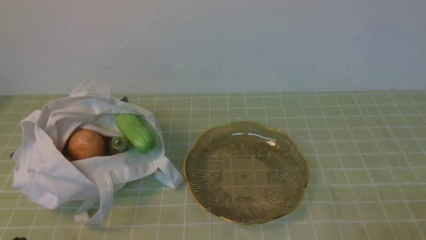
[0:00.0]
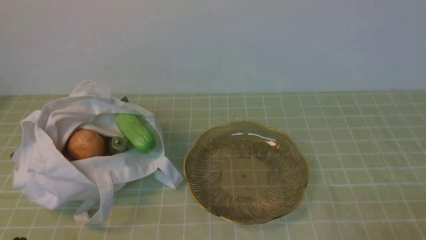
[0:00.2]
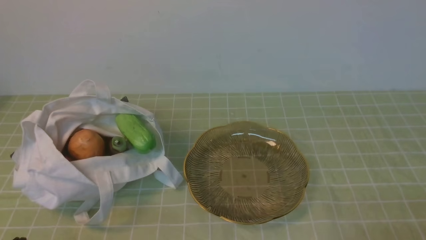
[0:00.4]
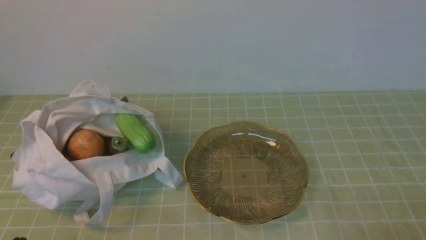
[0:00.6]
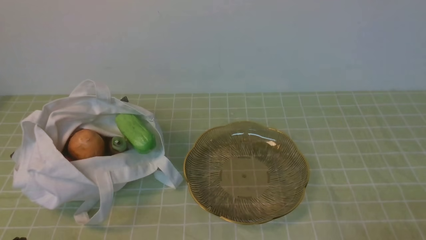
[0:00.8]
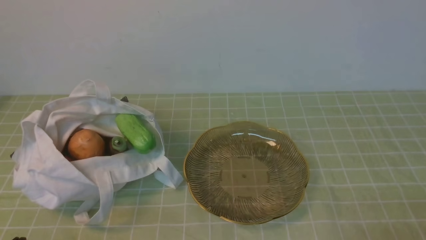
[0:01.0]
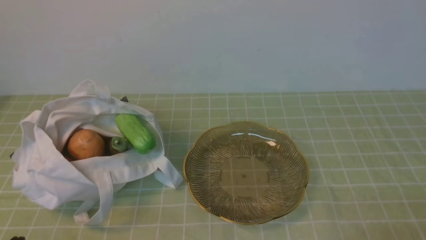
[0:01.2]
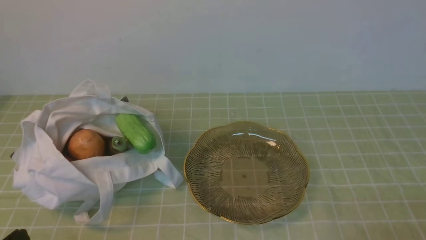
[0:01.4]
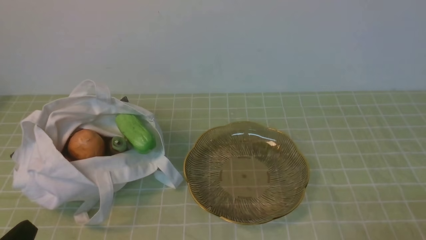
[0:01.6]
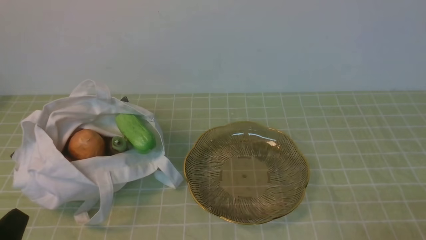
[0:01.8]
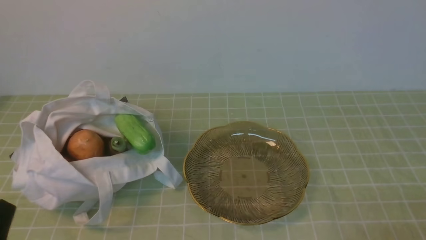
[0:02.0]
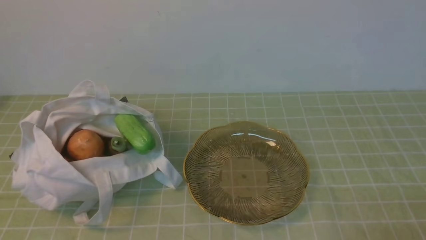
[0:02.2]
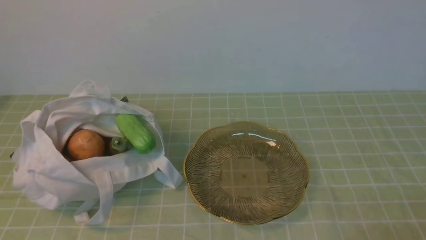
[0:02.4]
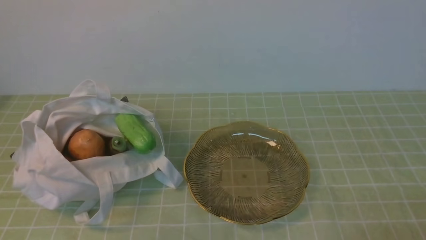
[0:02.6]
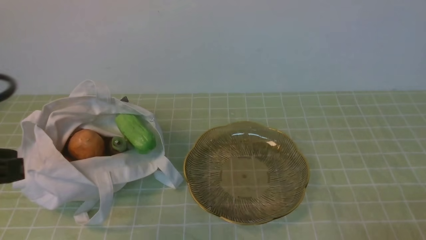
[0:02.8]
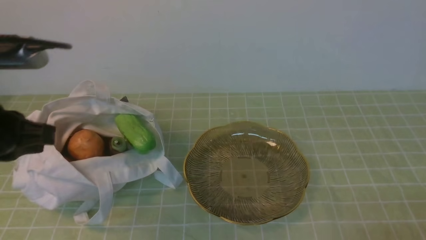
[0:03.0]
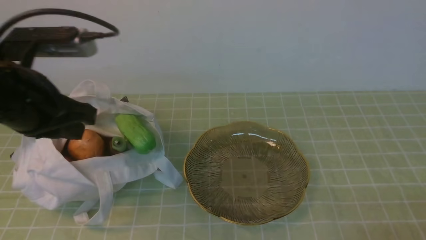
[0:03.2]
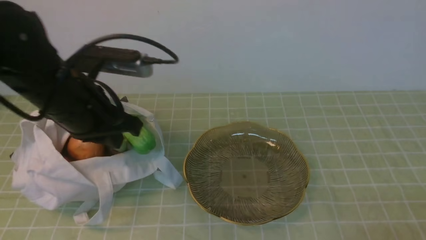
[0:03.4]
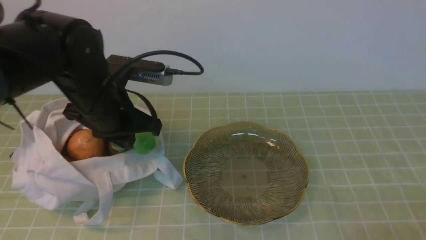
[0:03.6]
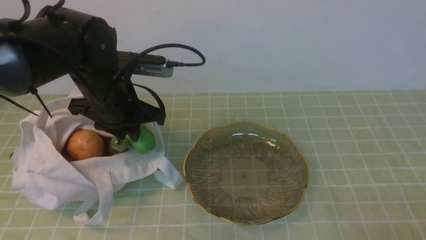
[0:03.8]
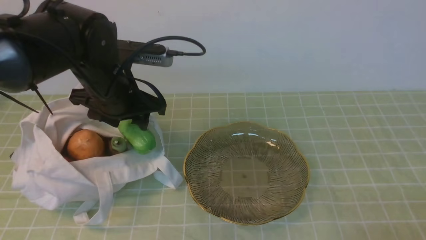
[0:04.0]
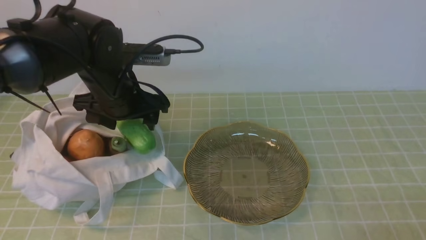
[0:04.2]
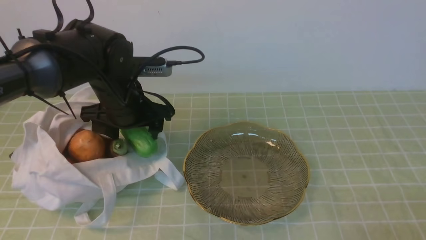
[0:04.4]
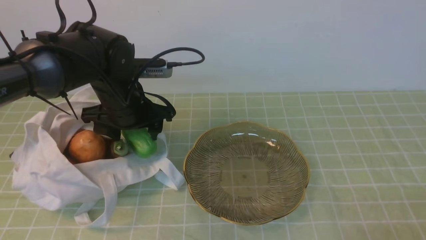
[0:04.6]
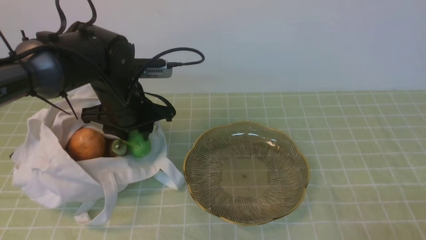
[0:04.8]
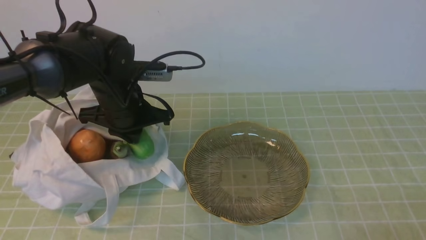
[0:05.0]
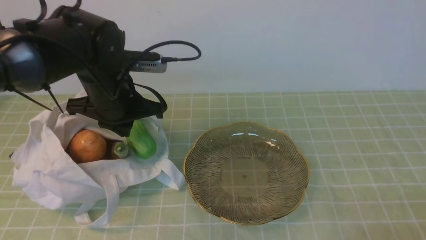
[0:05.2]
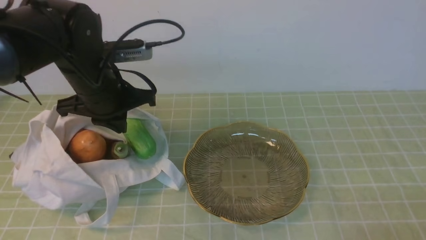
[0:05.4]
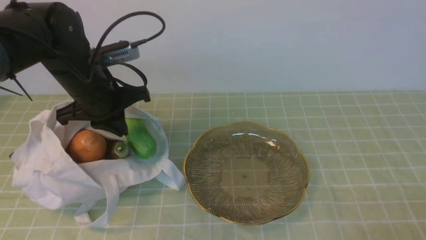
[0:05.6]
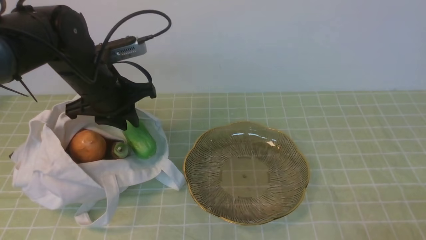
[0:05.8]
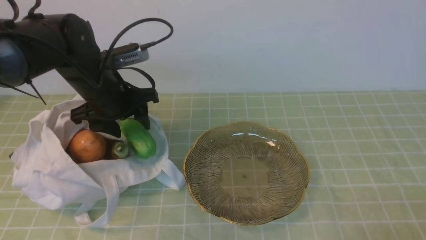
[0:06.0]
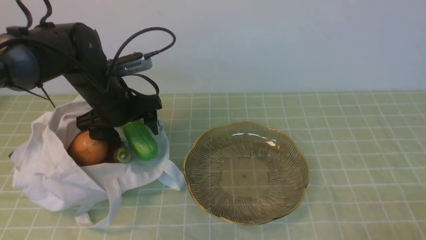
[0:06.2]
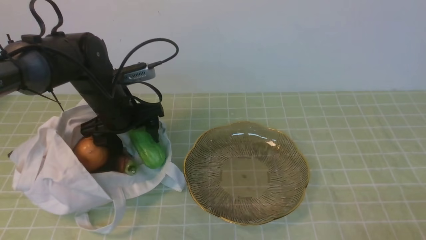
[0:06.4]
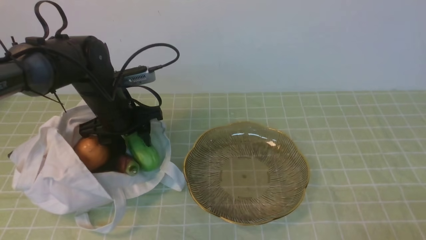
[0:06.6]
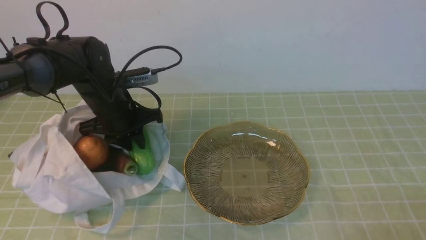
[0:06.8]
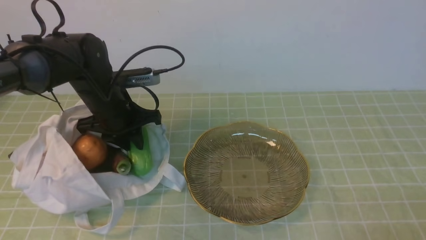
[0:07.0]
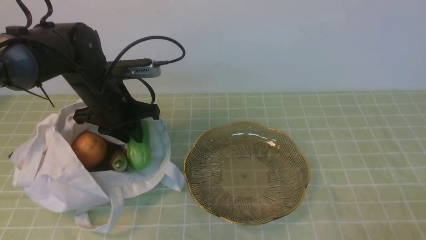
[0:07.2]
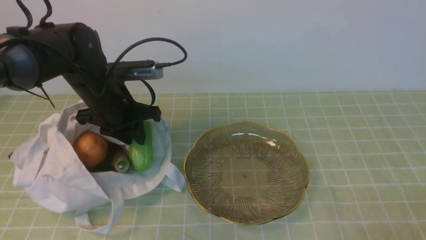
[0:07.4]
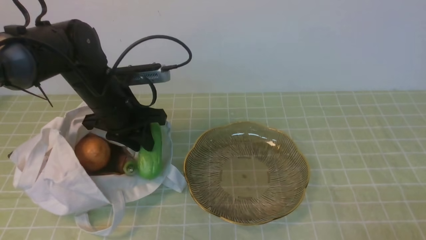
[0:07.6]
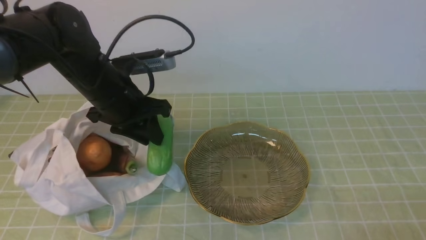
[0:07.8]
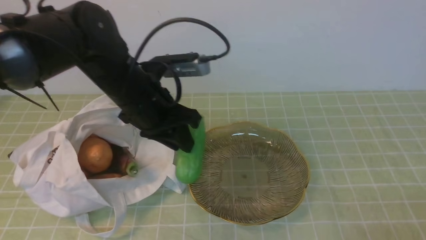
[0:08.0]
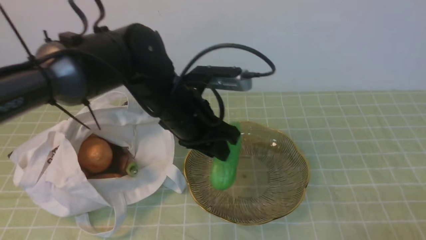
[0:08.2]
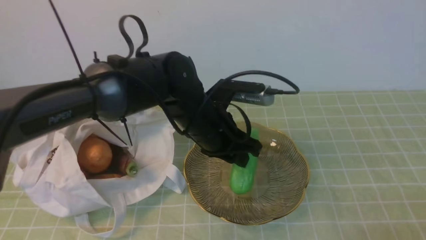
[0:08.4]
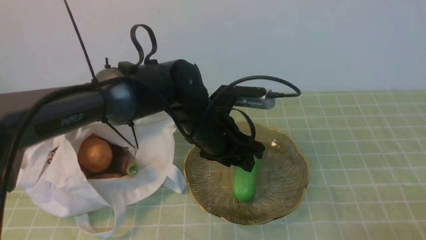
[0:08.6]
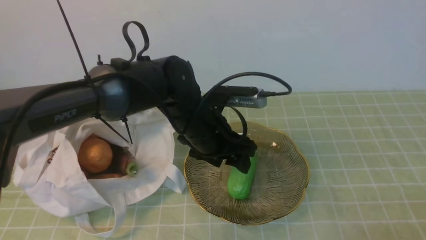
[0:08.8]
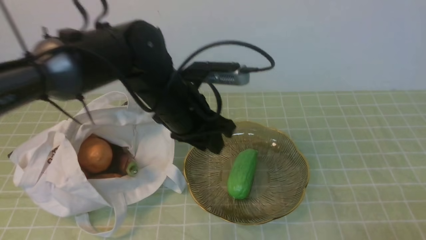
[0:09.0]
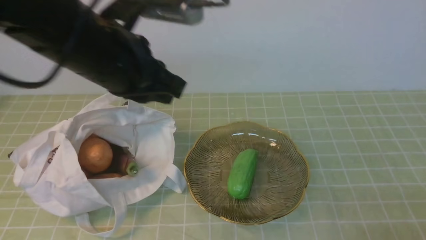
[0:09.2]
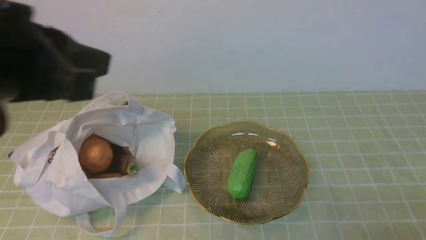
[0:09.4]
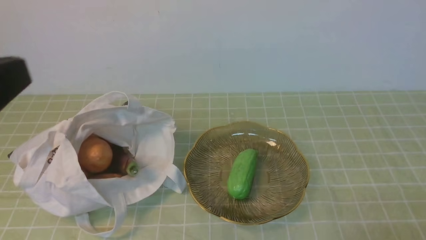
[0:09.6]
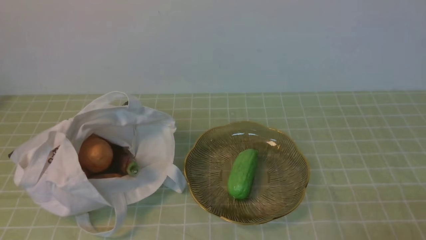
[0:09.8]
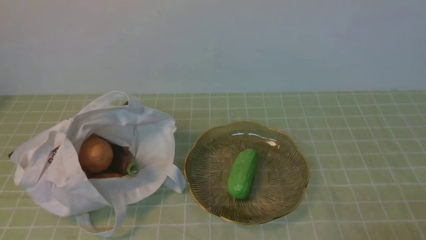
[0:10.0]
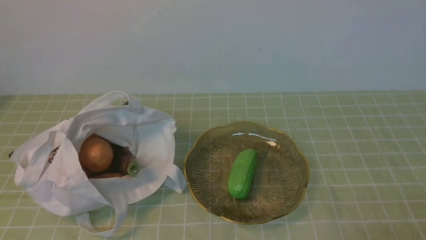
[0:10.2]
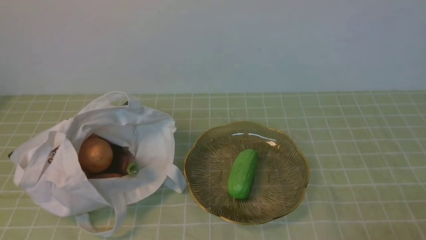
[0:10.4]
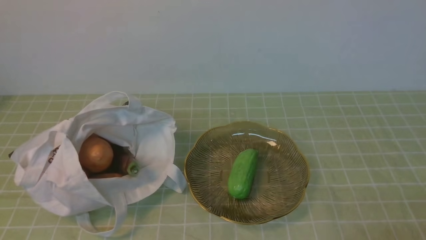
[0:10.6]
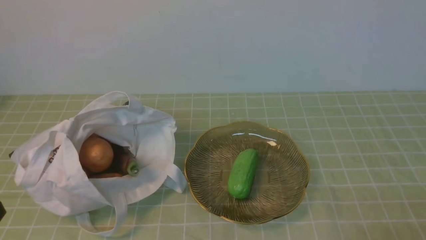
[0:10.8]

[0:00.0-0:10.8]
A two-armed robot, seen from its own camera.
Task of the whole recording: take vegetables from bag on green coffee tablecloth place on plate.
Step, 0:00.0 to 0:06.6: Grasp the bitter melon with left gripper.
Step, 0:06.8 to 0:08.8: Place the bitter melon on the plate with left gripper.
0:01.6 to 0:03.0: The left gripper travels upward and forward by approximately 20 cm.
0:03.0 to 0:04.6: The left gripper is displaced forward, downward and to the right by approximately 20 cm, and opens up.
0:04.6 to 0:06.2: The left gripper closes, then opens again.
0:06.2 to 0:07.8: The left gripper shifts by approximately 5 cm, and closes up.
0:07.8 to 0:09.2: The left gripper moves upward and backward, roughly 15 cm.
0:09.2 to 0:10.8: The left gripper goes about 25 cm backward, to the left and downward.

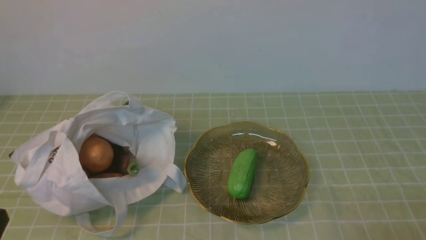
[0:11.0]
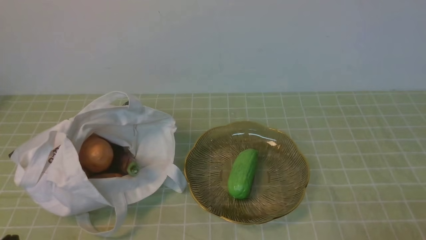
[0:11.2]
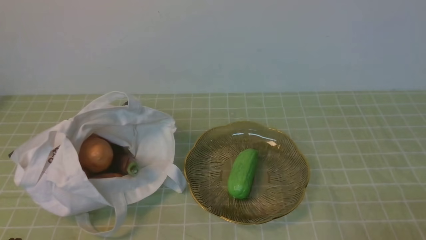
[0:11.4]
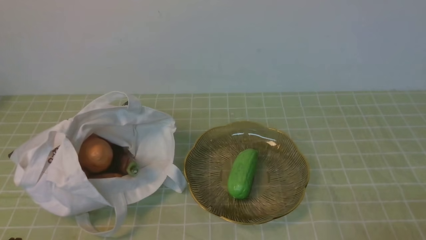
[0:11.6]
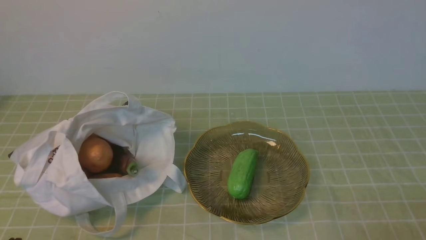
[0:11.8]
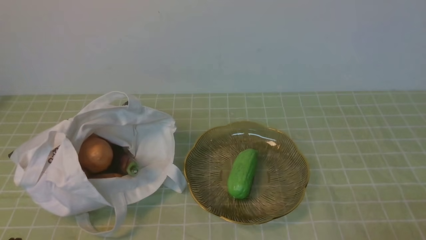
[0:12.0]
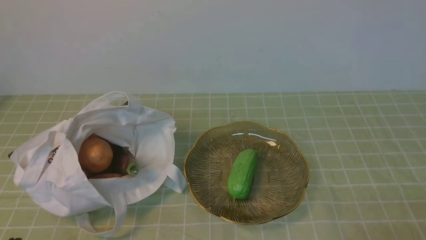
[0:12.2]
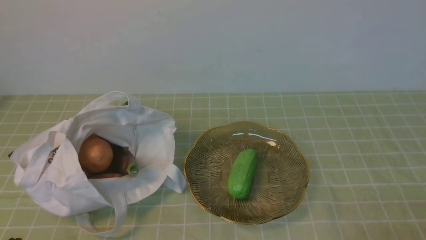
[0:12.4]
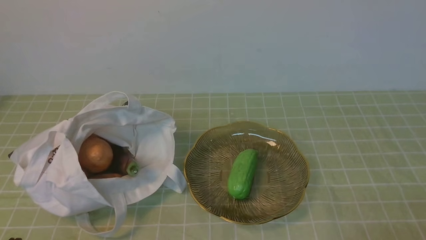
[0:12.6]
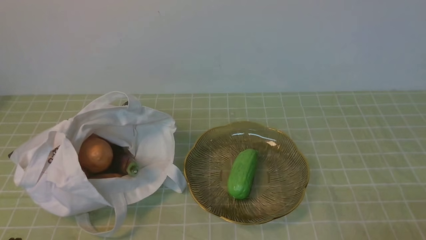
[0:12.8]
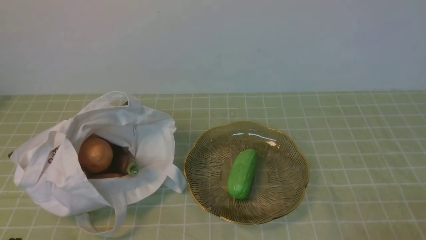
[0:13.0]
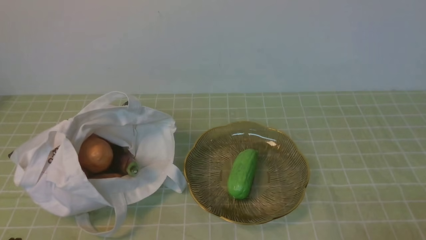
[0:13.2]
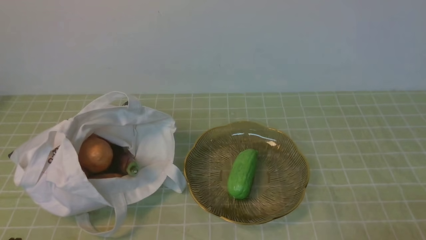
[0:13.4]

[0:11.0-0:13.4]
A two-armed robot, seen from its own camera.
Task of the whole recording: take vegetables from bag on green coffee tablecloth place on plate.
0:12.2 to 0:13.4: Neither gripper changes place.
